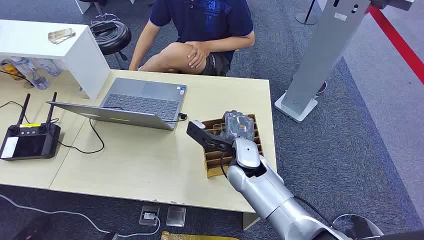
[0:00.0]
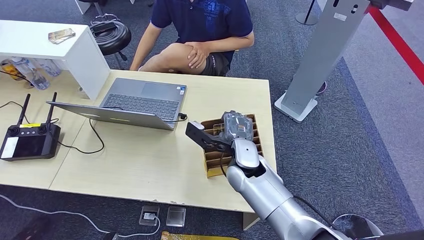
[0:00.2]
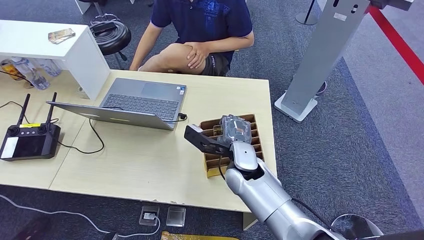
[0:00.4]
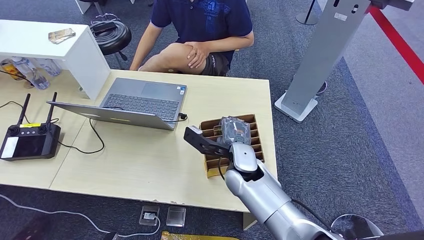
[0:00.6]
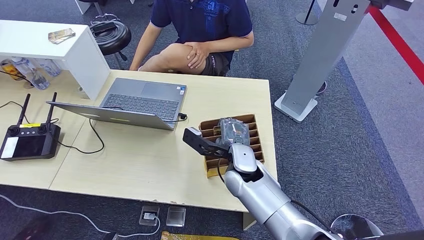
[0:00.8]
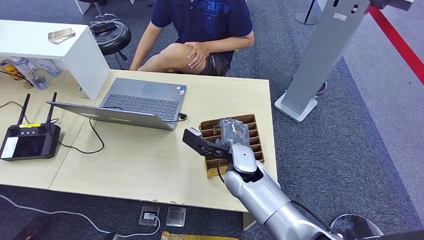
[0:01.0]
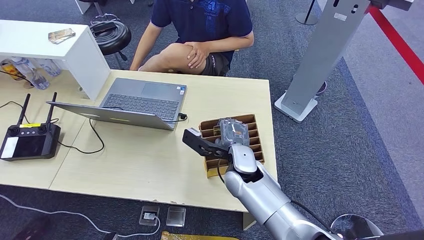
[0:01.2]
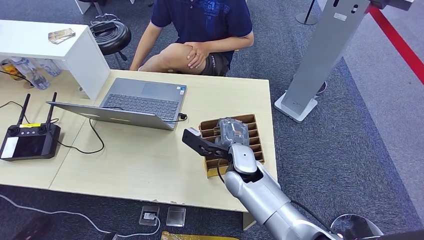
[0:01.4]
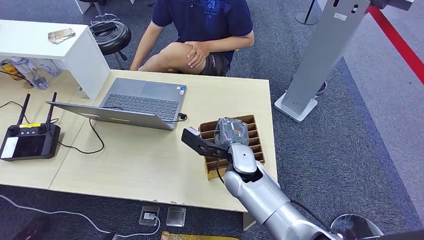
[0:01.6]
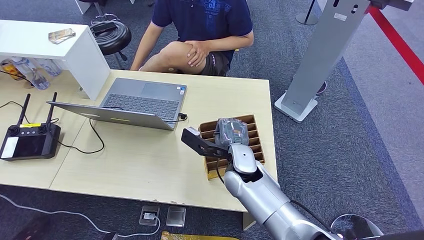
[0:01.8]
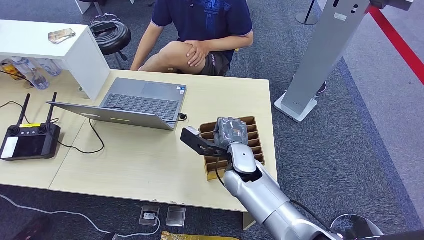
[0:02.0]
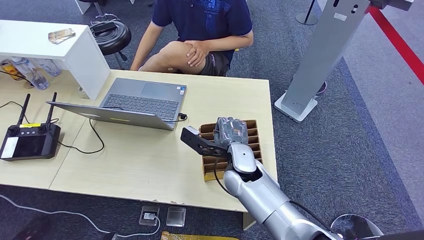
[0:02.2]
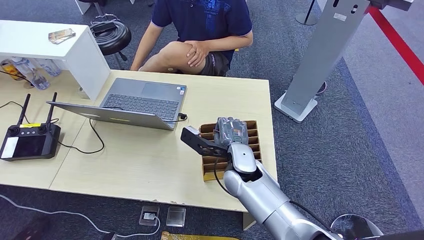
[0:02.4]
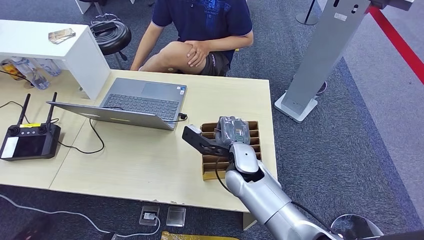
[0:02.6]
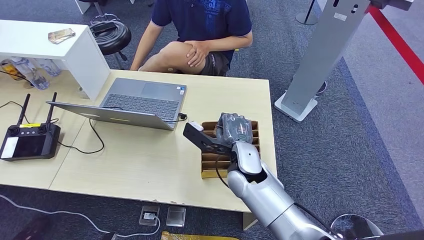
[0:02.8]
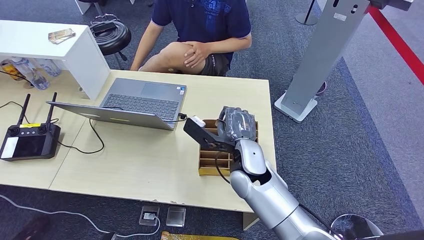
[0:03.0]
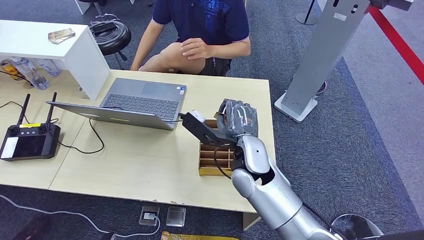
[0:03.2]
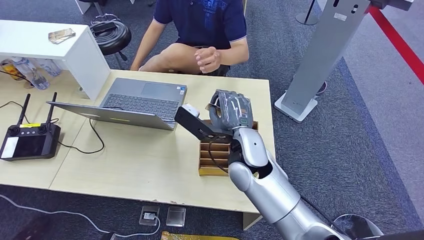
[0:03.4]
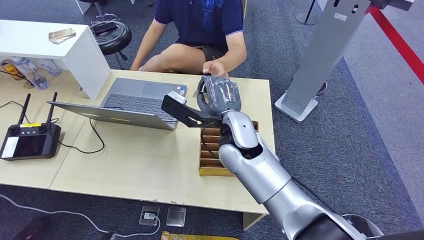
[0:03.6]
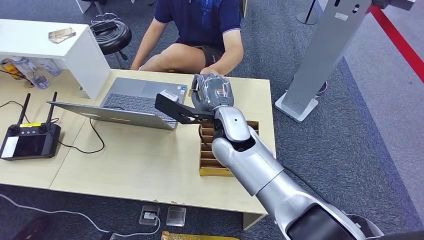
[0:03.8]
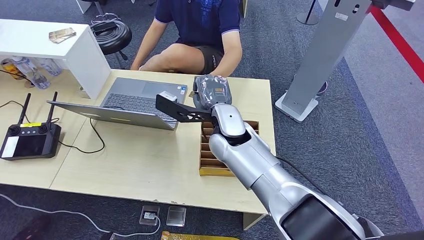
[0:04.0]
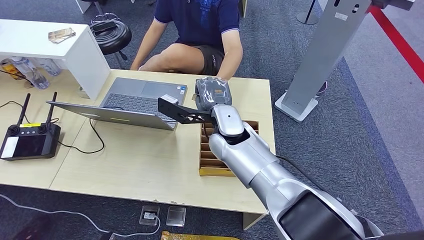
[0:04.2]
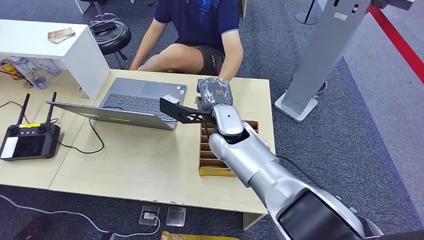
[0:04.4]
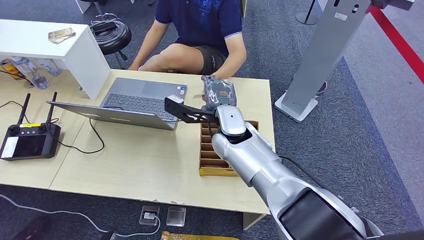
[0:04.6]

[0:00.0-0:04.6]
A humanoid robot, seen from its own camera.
Step, 0:00.0 to 0:03.2: Pick up the key card from the card box.
Step, 0:03.6 to 0:04.6: Hand the key card to the target.
0:01.6 to 0:03.0: The hands stay close to where they were, moving slightly.
0:03.0 to 0:04.6: The right hand goes roughly 5 cm forward.
